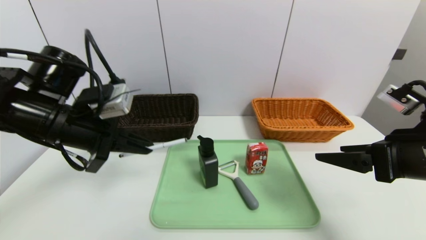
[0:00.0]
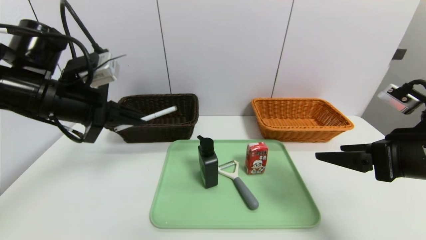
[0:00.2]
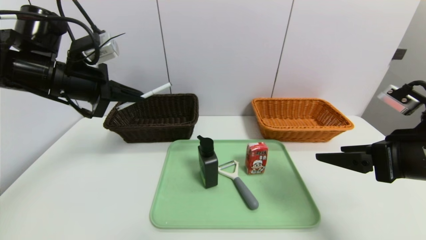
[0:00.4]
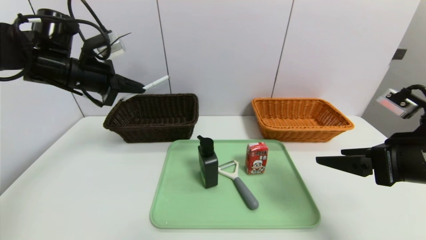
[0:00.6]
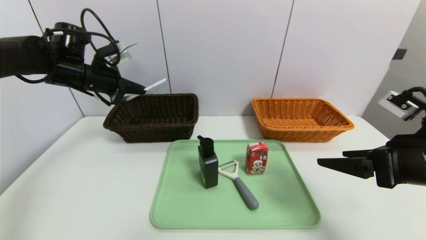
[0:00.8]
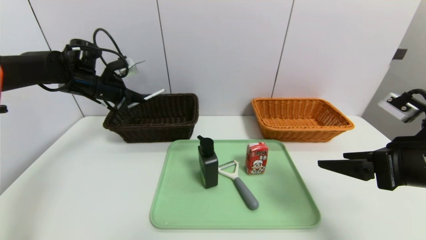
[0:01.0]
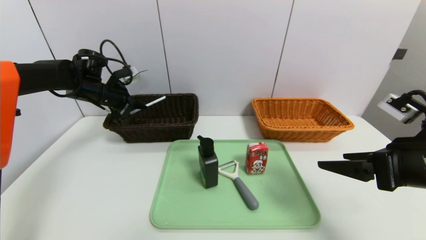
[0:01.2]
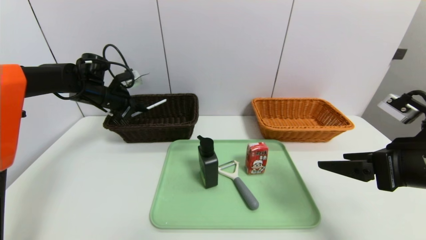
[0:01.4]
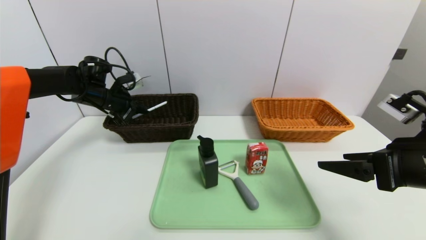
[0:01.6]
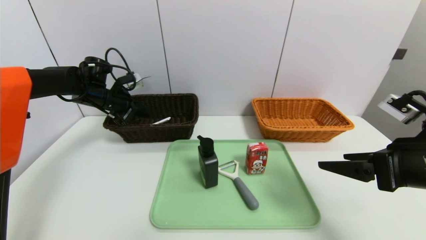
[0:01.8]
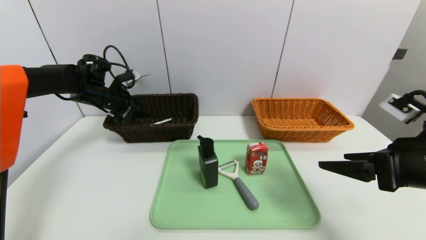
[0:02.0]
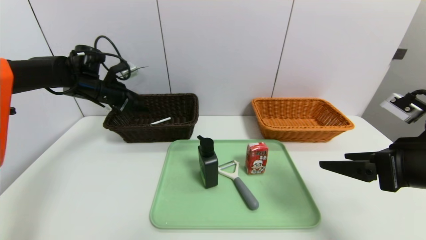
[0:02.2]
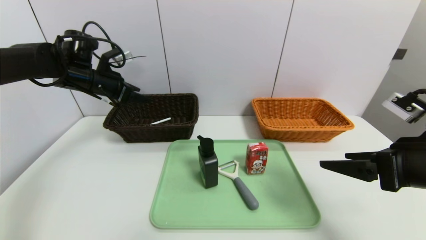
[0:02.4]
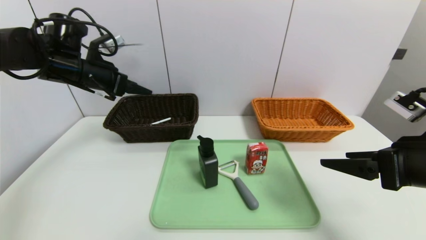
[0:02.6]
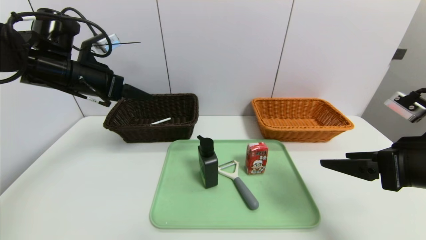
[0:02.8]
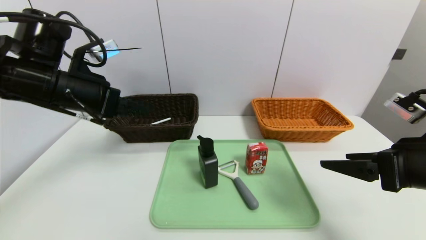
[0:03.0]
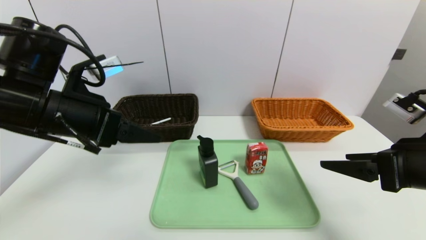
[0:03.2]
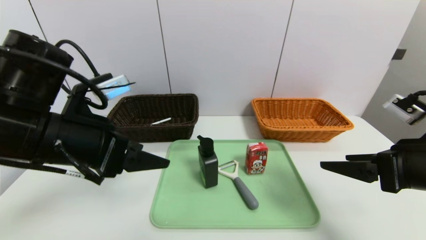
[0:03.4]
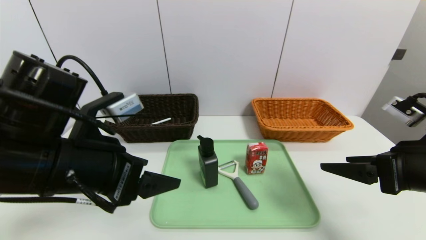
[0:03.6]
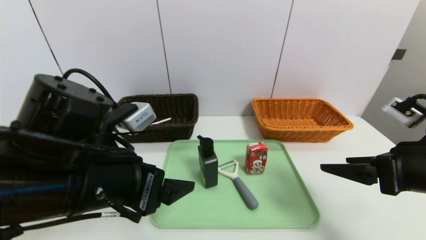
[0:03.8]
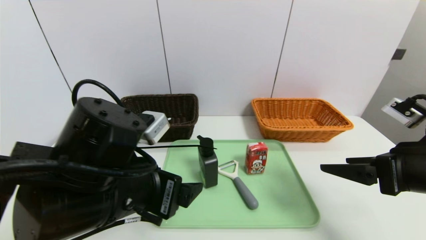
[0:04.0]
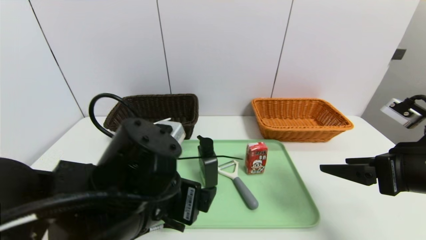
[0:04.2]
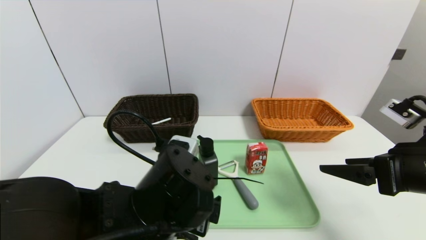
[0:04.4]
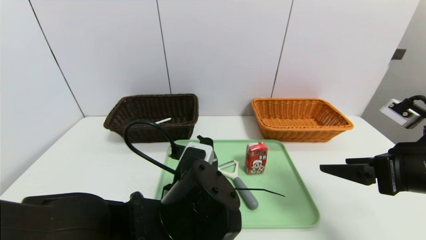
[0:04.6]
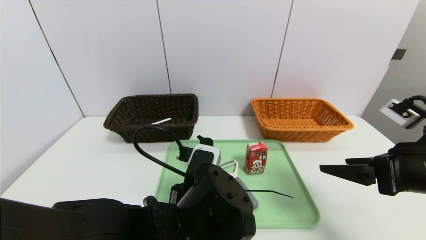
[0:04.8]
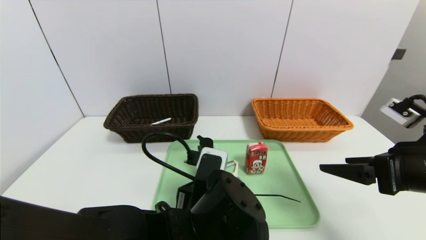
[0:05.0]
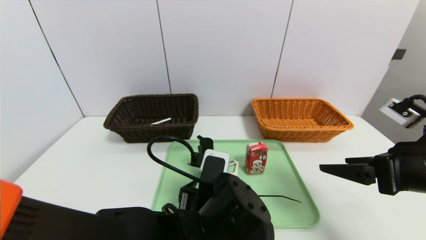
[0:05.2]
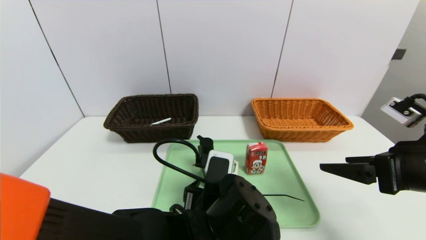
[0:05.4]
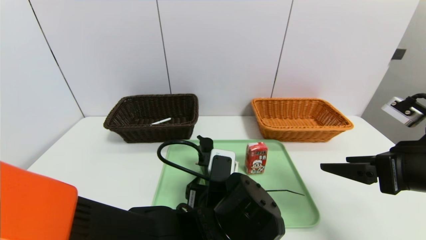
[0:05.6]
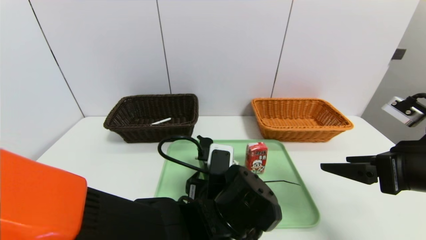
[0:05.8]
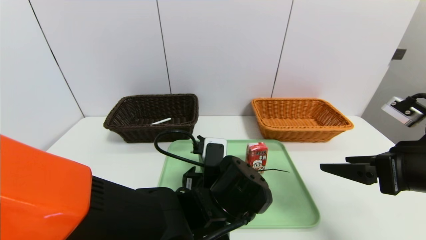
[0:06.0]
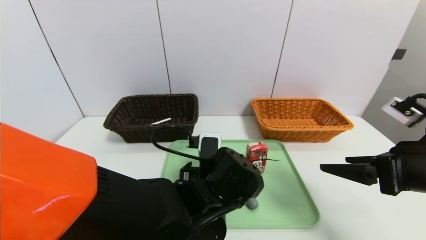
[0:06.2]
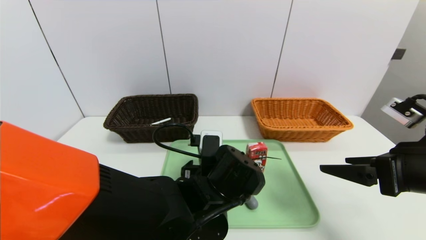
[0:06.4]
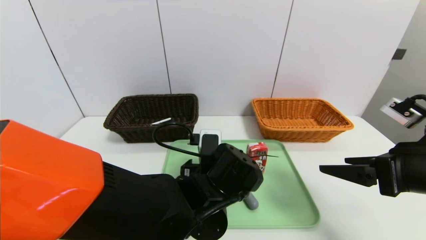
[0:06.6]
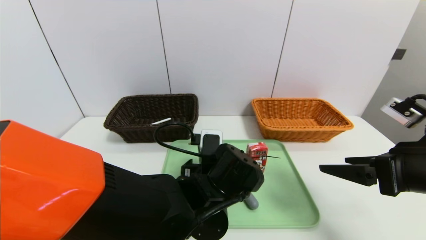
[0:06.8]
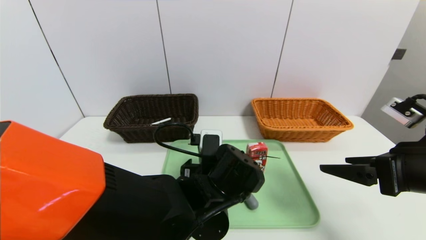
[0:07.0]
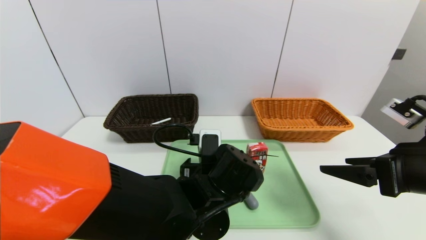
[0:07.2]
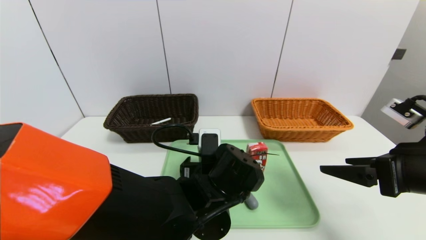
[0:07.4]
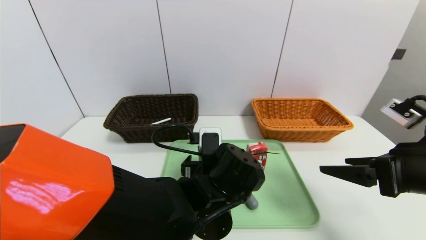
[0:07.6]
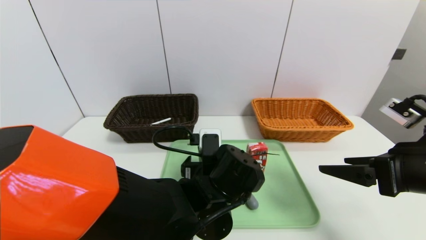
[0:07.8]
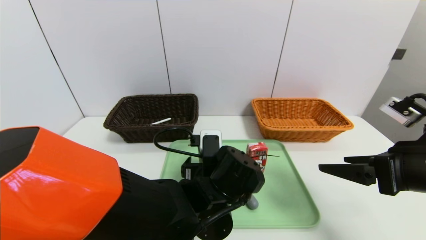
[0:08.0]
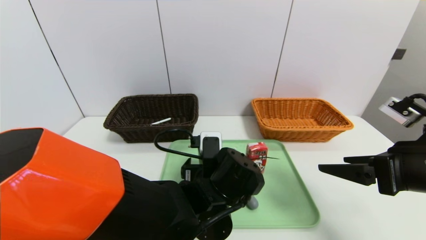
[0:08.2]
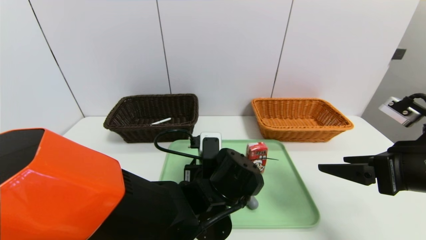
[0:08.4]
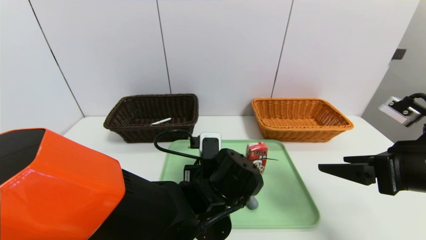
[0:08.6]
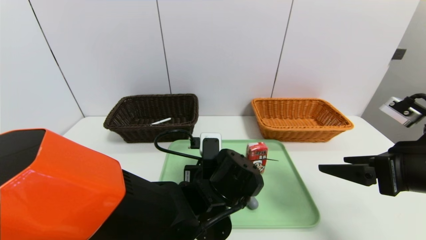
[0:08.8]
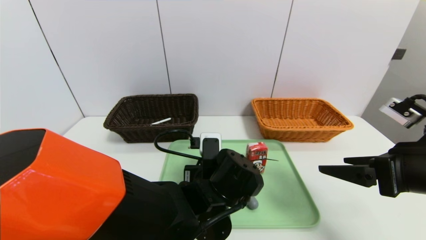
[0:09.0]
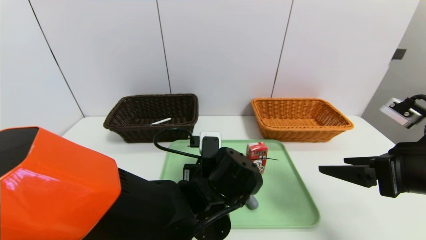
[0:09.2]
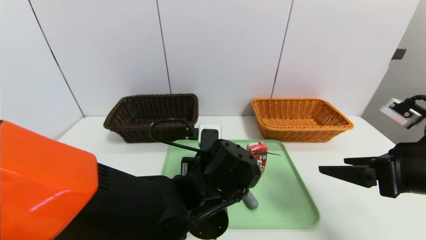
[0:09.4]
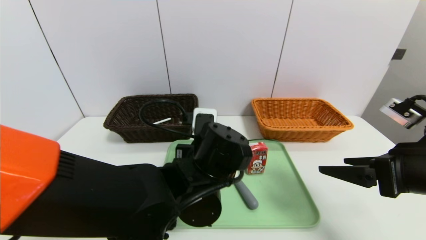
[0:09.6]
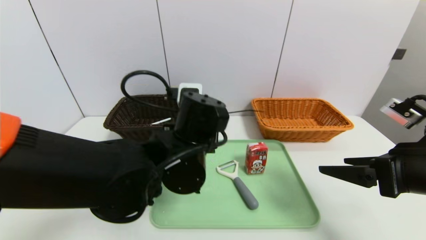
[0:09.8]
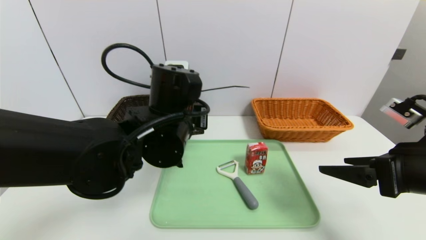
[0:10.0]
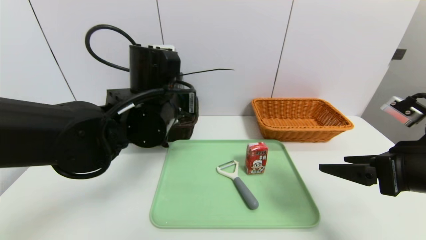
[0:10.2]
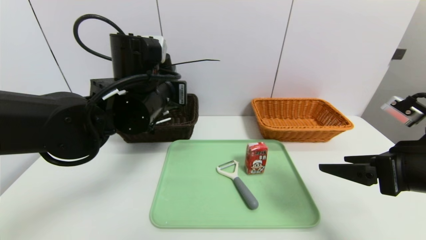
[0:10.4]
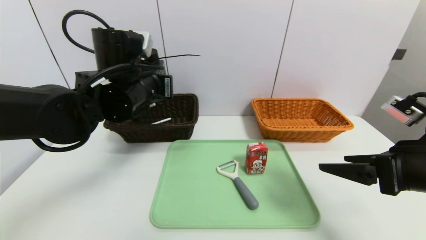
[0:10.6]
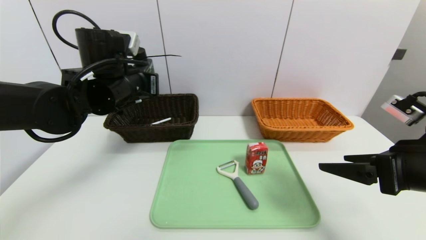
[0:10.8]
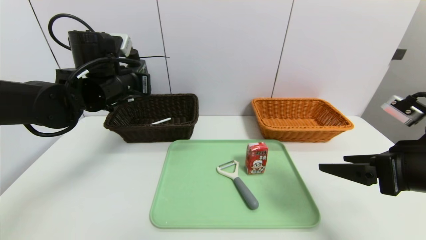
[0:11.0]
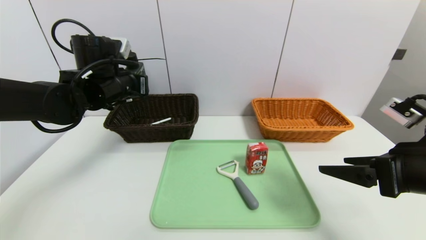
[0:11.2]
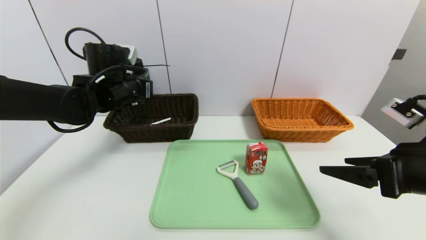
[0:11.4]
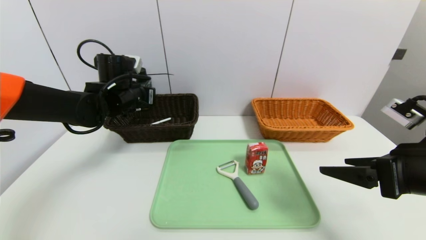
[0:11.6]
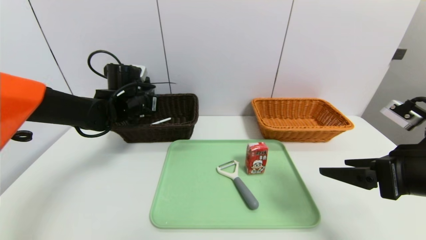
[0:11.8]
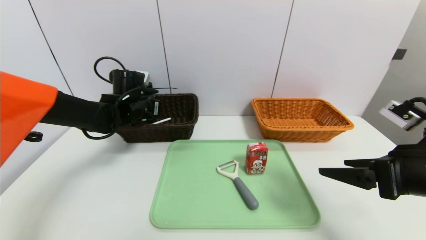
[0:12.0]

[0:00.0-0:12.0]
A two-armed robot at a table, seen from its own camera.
Task of the whole recording: place the food in the right basket with the right gripper, and place the non food items in the left basket with the left gripper.
Step, 0:00.0 to 0:02.2: Grasp the ballpoint pen and put it in the left basket.
0:00.0 to 0:01.6: The left gripper shifts approximately 20 cm forward.
0:01.6 to 0:03.0: The left gripper heads backward and upward, covering some 20 cm, and opens up.
0:03.0 to 0:04.4: The left gripper heads to the right, backward and downward, covering approximately 25 cm.
0:04.4 to 0:06.0: The left gripper is displaced to the right, downward and forward by some 10 cm.
0:06.0 to 0:07.6: The grippers make only small movements.
0:07.6 to 0:09.0: The left gripper closes.
0:09.0 to 0:10.4: The left gripper shifts roughly 20 cm upward, to the left and forward.
0:10.4 to 0:12.0: The left gripper shifts some 20 cm forward, to the left and downward.

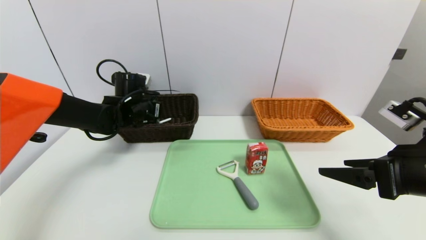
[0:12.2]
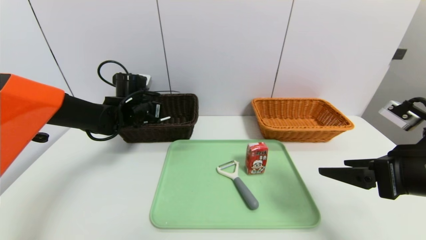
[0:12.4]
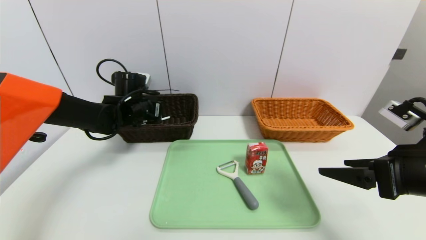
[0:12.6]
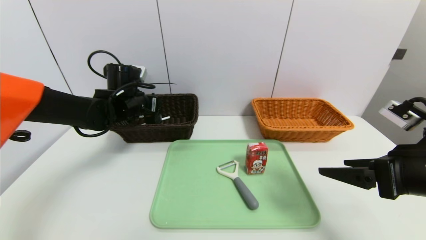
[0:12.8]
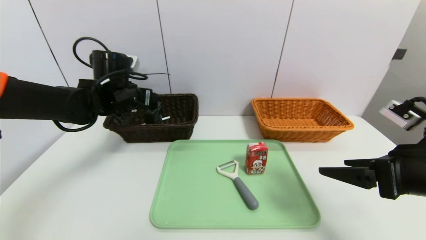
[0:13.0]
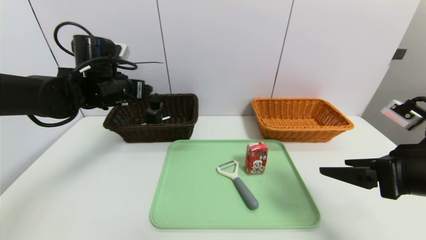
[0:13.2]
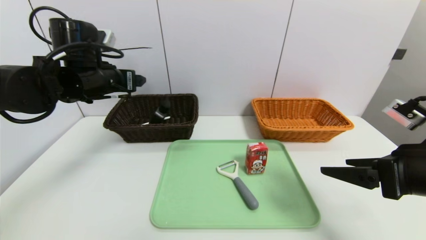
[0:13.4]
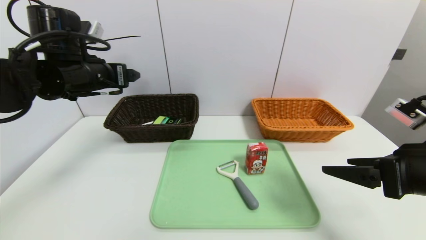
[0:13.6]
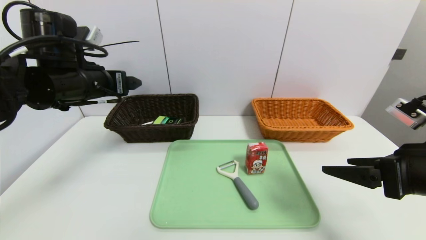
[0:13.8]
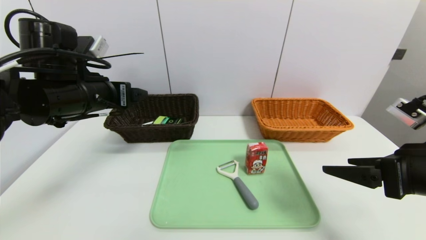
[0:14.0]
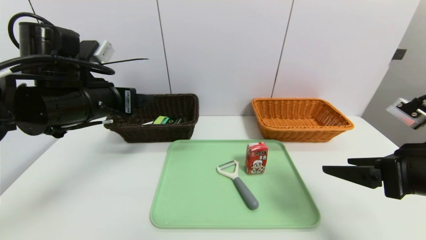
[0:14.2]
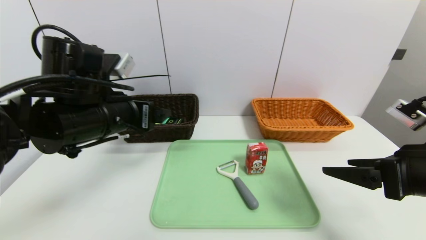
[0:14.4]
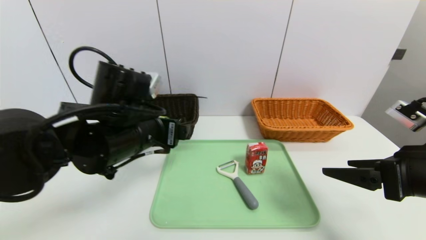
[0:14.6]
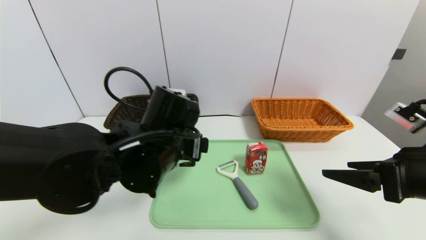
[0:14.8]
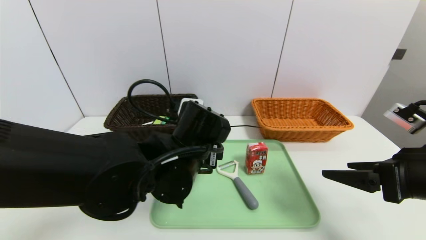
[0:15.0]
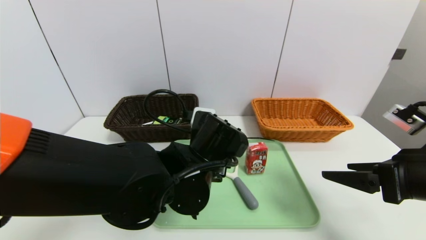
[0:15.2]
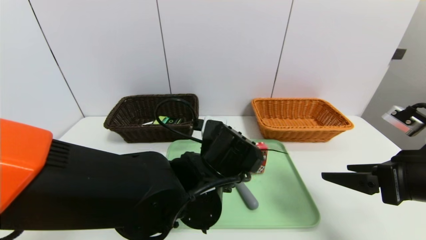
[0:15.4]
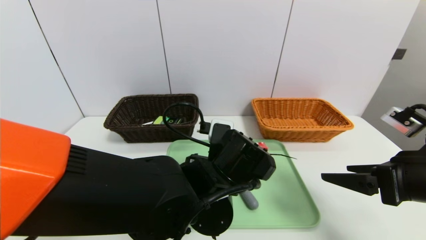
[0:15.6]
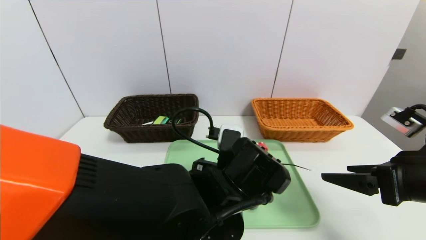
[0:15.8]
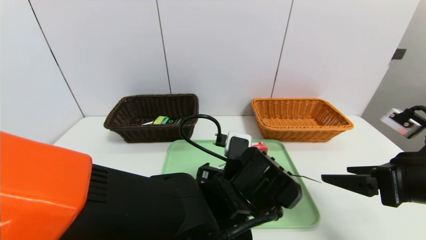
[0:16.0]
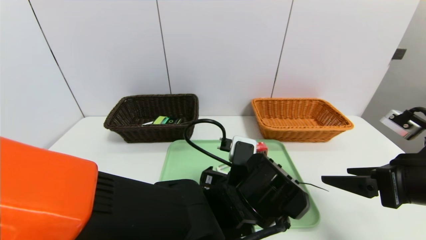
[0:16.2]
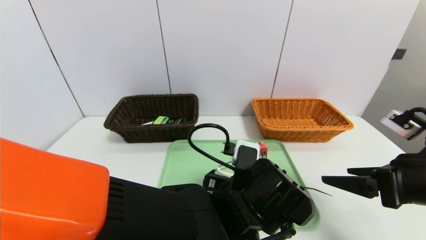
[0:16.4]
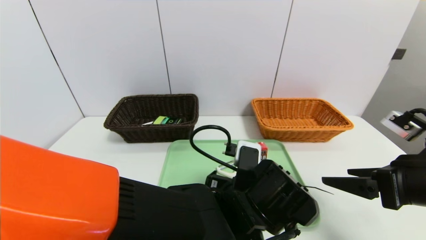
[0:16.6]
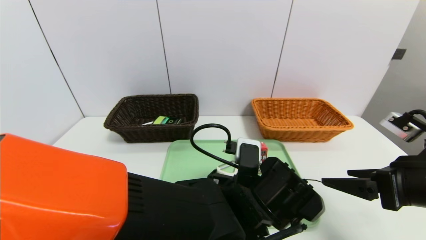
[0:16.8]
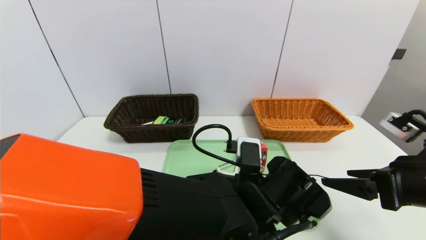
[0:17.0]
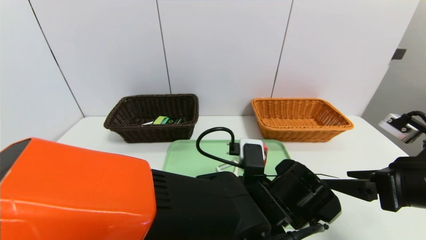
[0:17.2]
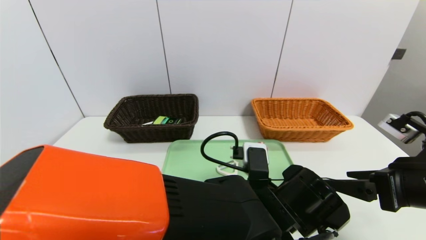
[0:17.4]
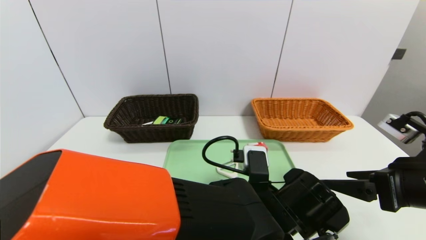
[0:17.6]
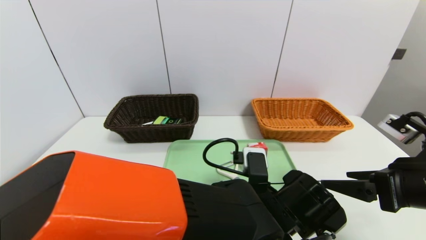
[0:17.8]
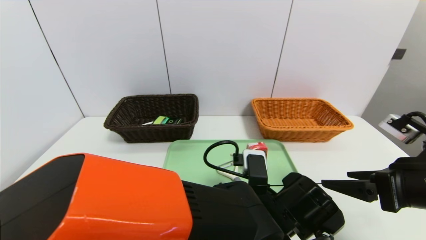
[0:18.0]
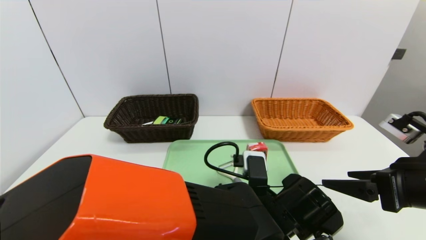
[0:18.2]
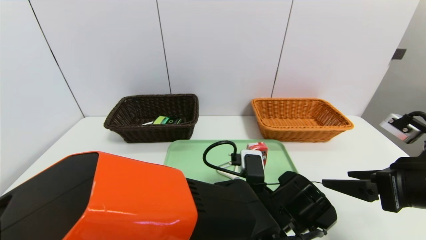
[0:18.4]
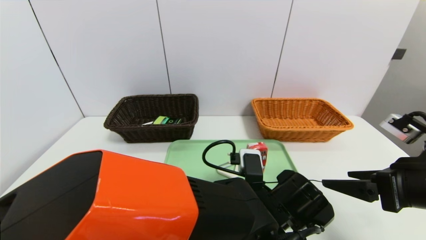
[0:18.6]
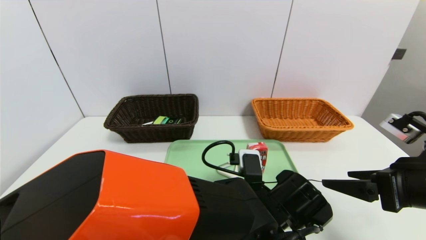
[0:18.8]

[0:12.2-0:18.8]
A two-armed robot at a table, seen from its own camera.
Task of the whole recording: place the food in the right basket with the right gripper, and place the non food items in the left basket with the left gripper.
0:12.2 to 0:13.8: The left gripper goes approximately 15 cm backward and upward, and opens its fingers.
0:13.8 to 0:15.4: The left gripper goes roughly 25 cm to the right and downward.
0:15.4 to 0:17.2: The left gripper heads to the right, covering about 5 cm.
0:17.2 to 0:18.8: The grippers make only small movements.
